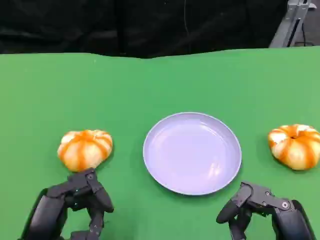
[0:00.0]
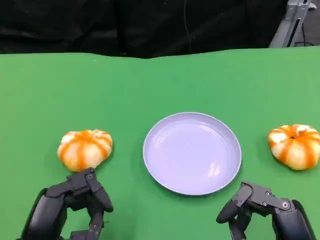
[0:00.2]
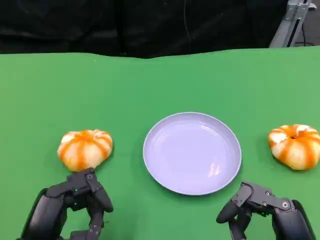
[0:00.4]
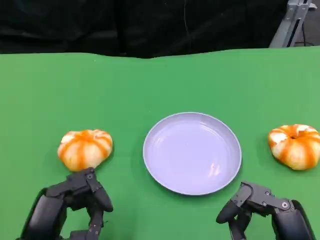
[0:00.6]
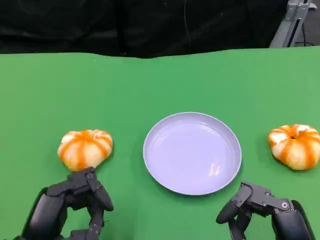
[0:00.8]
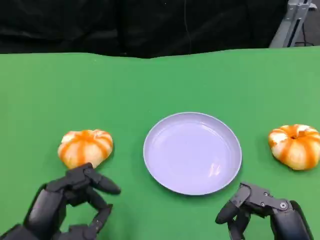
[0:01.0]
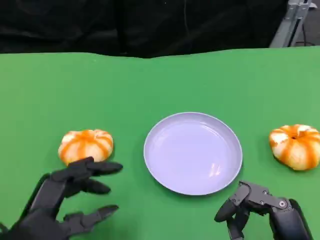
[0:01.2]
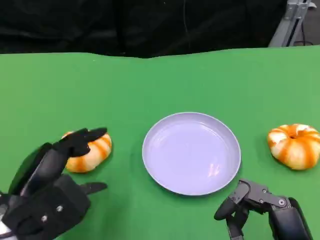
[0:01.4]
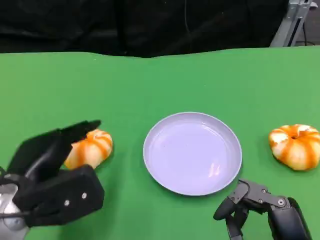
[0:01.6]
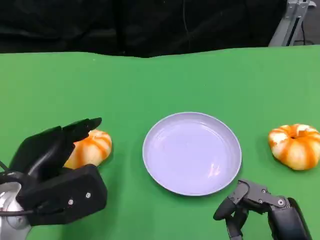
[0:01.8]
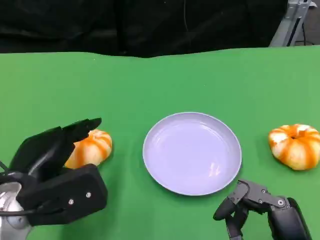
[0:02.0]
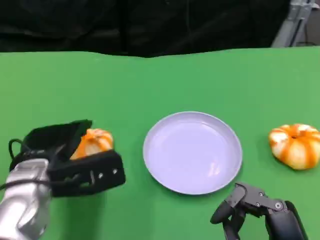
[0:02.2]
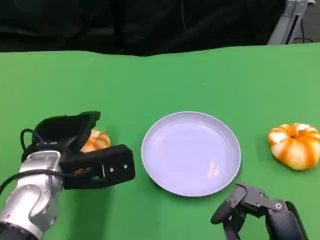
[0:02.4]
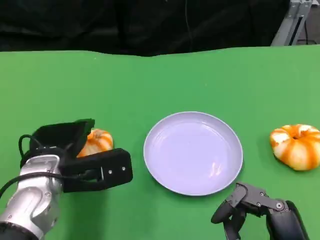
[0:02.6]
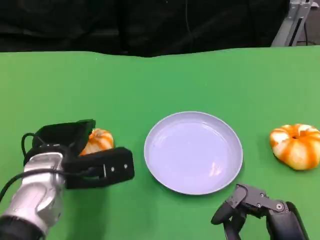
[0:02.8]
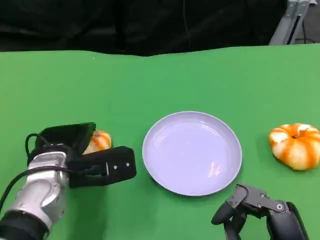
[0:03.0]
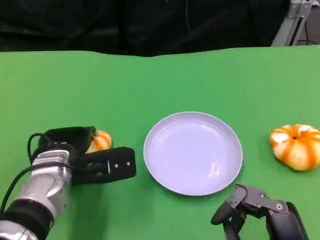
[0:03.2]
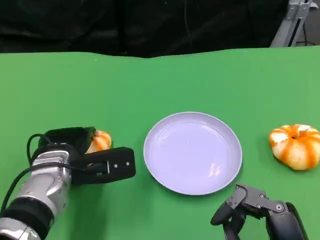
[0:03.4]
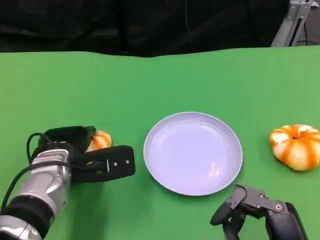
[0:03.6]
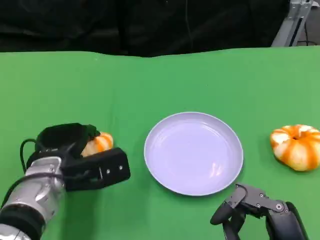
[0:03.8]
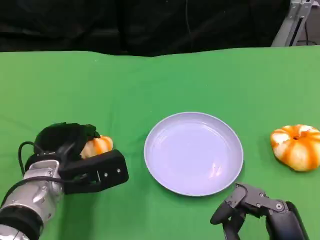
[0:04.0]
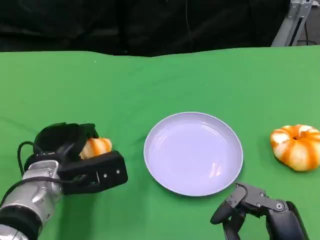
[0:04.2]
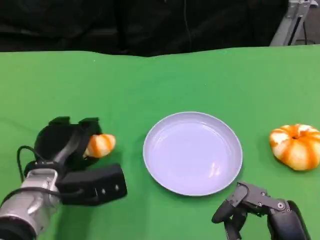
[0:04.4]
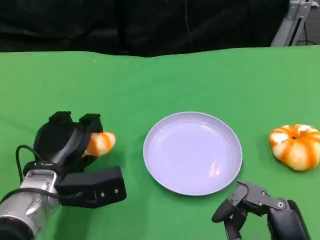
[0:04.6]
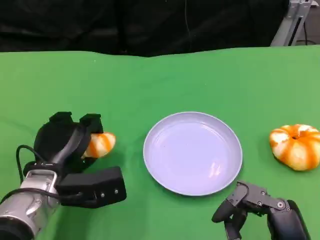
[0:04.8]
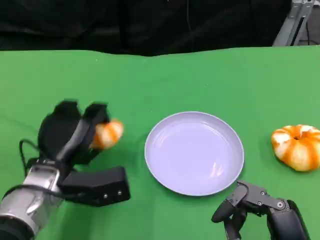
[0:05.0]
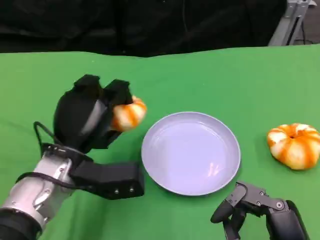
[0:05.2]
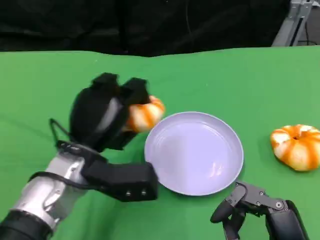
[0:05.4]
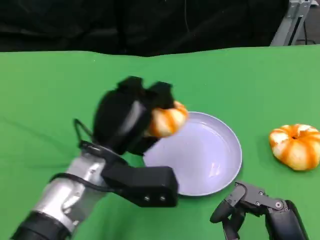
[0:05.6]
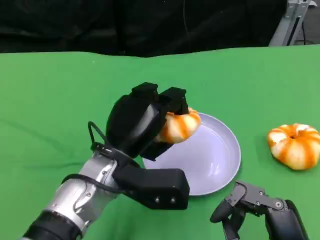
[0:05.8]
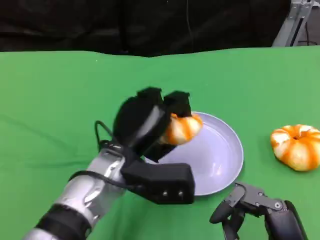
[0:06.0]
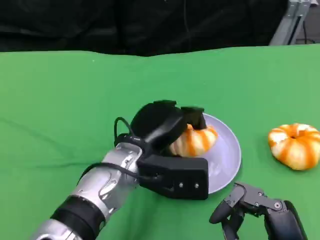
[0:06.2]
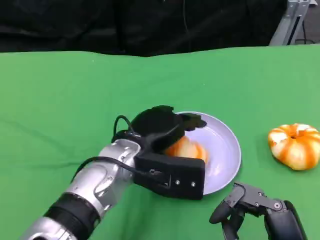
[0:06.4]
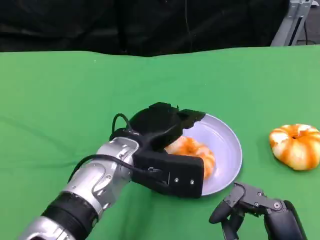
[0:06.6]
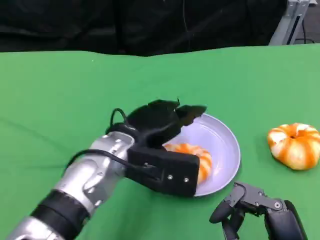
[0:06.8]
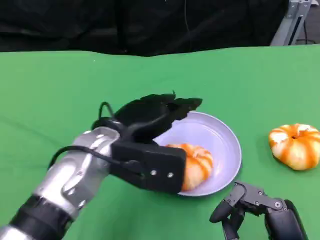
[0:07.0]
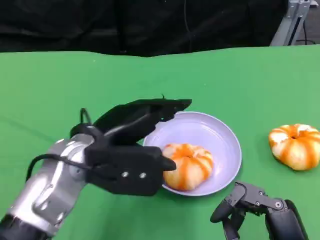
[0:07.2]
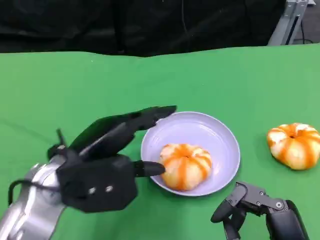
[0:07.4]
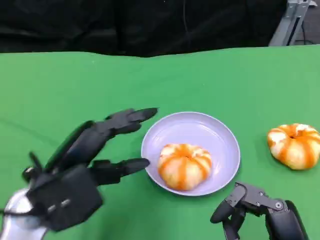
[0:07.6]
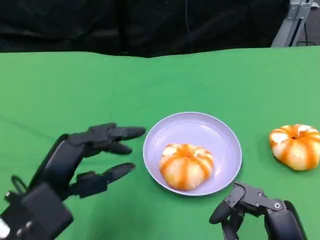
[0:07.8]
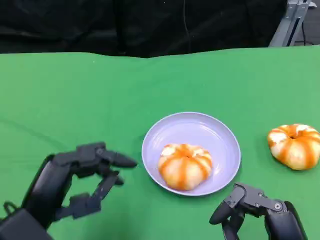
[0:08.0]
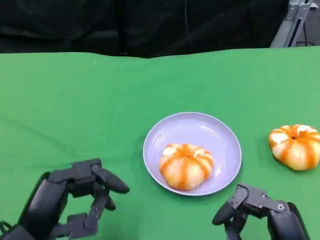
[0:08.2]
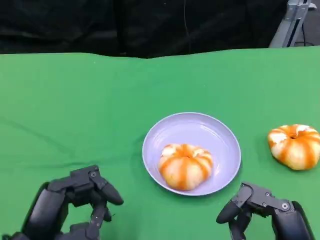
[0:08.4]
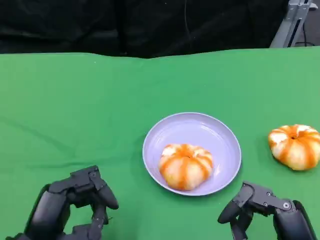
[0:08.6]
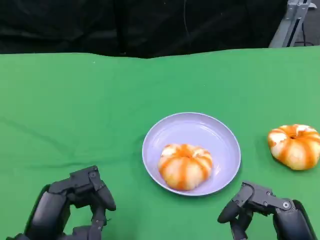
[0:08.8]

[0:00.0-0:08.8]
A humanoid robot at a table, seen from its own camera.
Task of the whole recording: Grasp the bread from the table and place it into the plate.
0.0 to 1.4 s: The left hand shifts approximately 5 cm forward.
1.4 to 3.0 s: The left hand goes roughly 10 cm forward.
4.4 to 5.8 s: The left hand moves to the right and upward, about 10 cm.
5.8 to 7.4 s: The left hand shifts approximately 10 cm to the left.
7.4 to 8.8 s: The left hand travels backward and downward by some 10 cm.

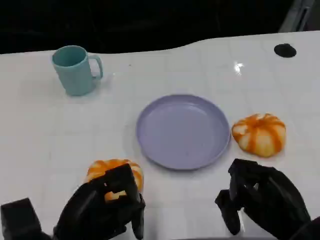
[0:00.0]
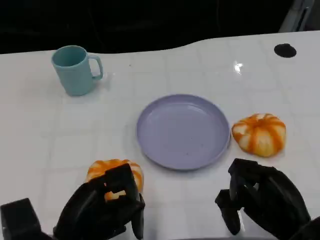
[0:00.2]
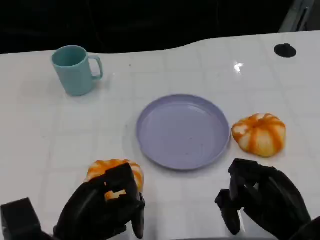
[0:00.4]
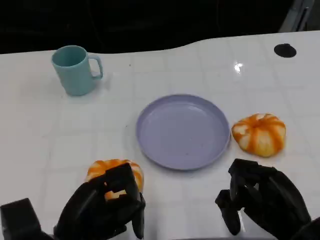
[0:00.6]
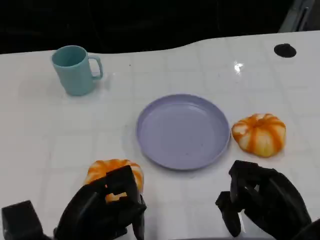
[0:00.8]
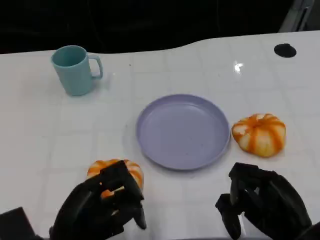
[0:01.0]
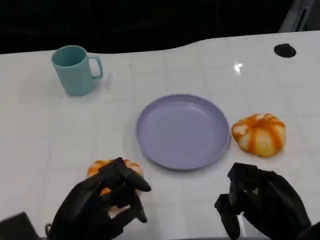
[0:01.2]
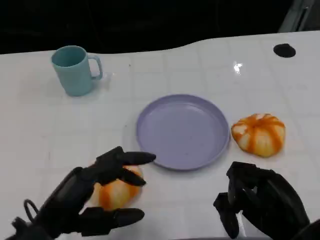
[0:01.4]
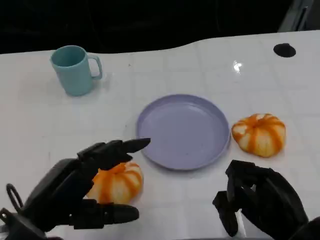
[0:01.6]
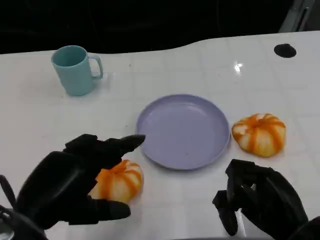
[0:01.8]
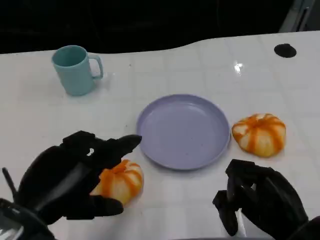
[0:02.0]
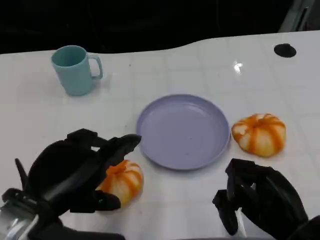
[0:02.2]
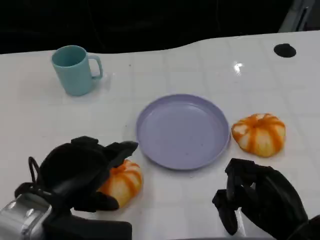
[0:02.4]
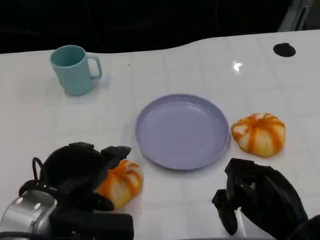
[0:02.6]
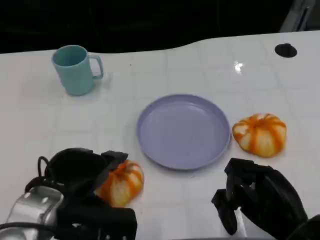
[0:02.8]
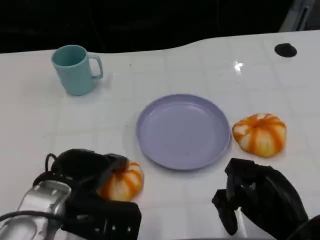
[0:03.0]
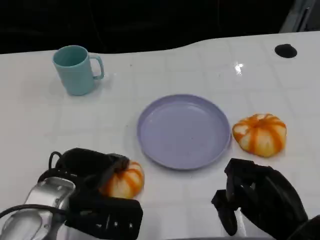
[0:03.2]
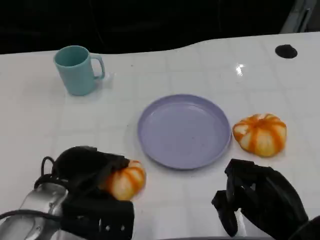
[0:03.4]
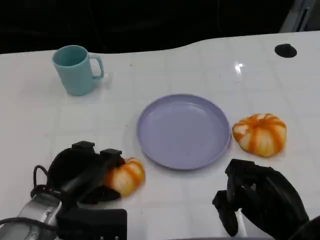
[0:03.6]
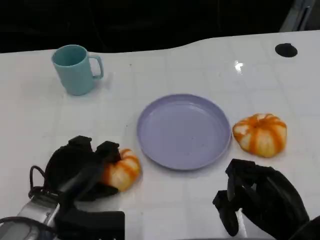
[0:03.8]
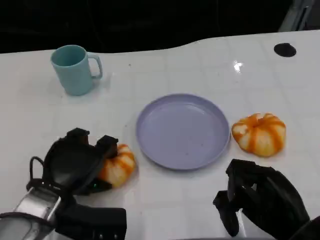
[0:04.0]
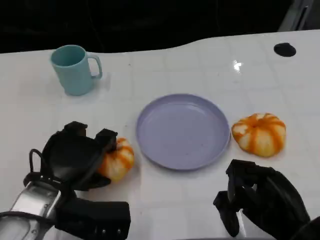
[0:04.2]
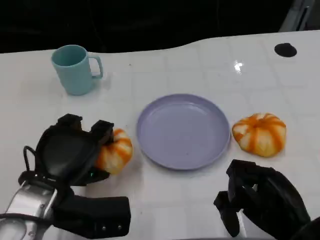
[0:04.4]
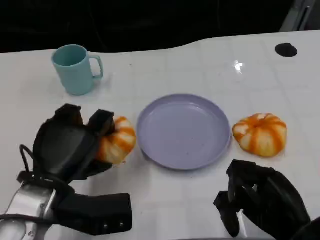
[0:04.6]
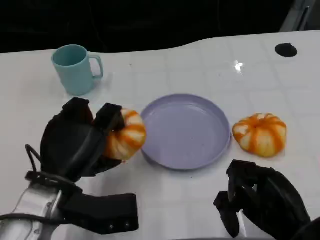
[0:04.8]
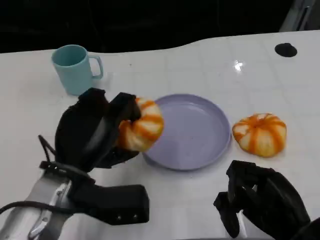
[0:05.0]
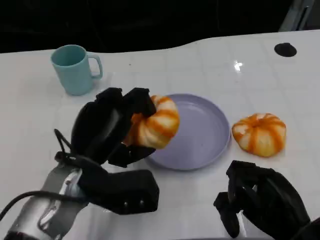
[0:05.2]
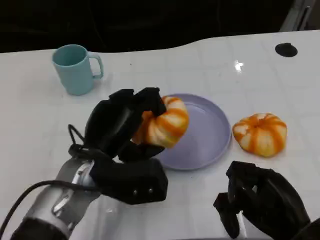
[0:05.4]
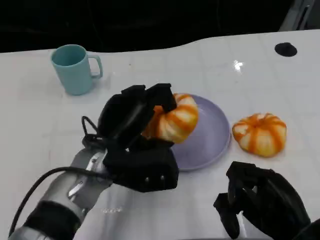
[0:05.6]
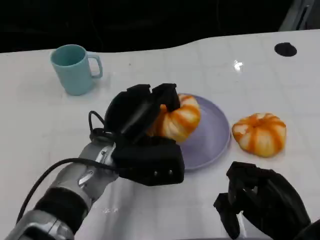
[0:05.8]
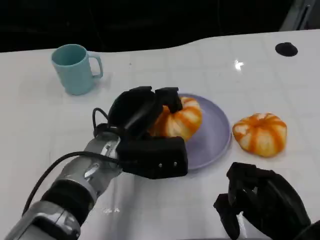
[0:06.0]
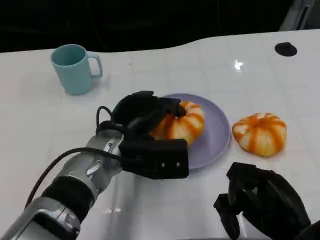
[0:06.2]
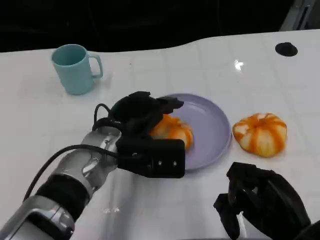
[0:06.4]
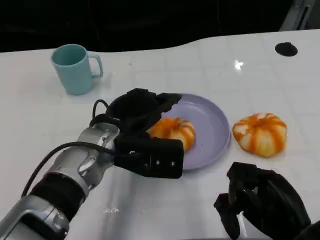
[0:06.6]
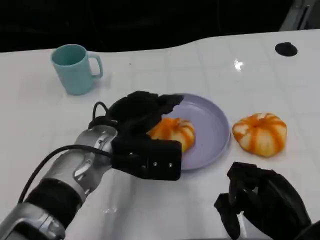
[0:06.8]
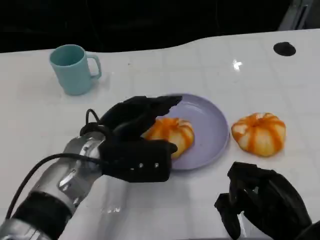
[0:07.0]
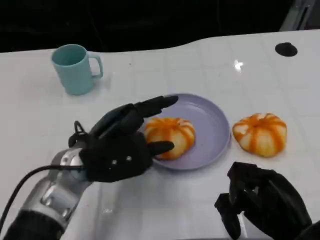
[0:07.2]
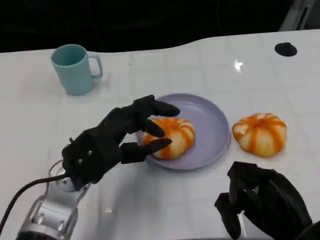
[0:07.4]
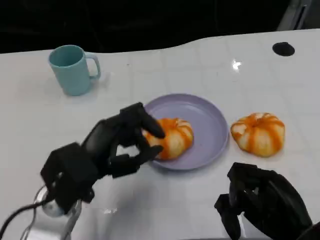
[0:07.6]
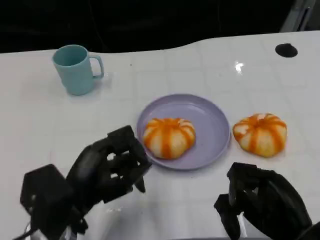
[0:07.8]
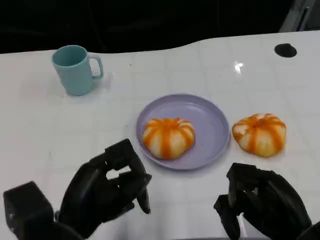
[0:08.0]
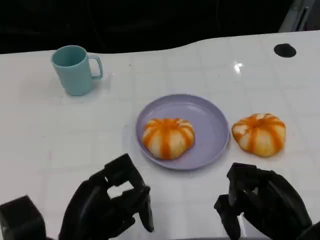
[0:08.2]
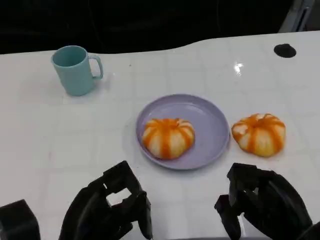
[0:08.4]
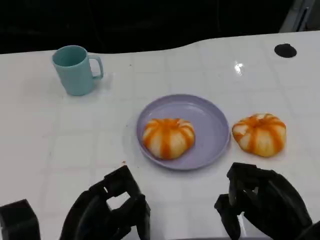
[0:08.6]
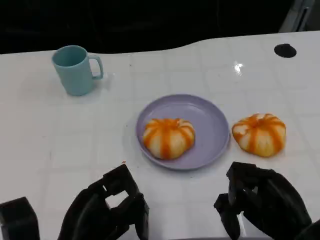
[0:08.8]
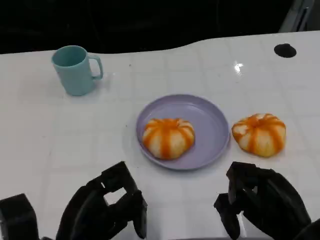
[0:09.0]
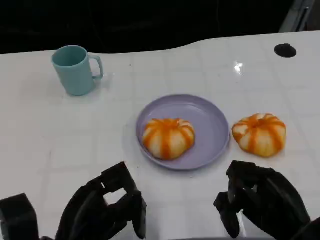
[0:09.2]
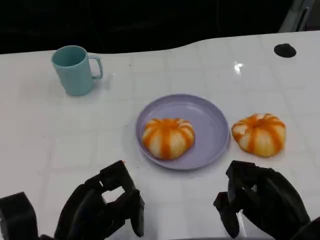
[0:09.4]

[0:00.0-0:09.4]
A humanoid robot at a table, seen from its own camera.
Task of the whole recording: Grasp the bread from the table and place it into the plate.
0.0 to 1.6 s: The left hand is displaced upward by about 5 cm.
1.6 to 3.2 s: The left hand goes about 10 cm forward.
4.8 to 6.2 s: The left hand shifts roughly 10 cm to the right and forward.
6.2 to 7.8 s: The left hand travels backward and to the left by some 15 cm.

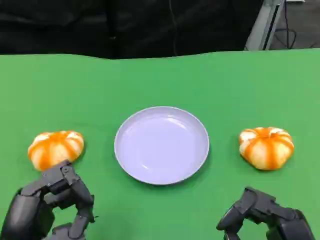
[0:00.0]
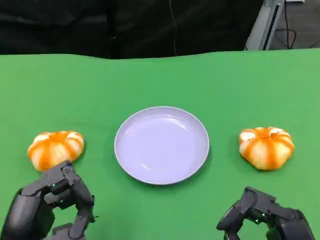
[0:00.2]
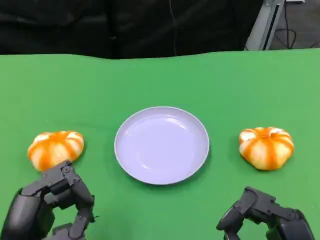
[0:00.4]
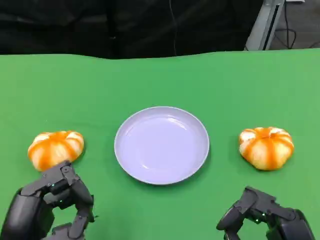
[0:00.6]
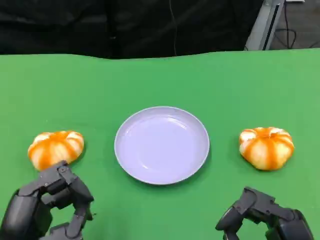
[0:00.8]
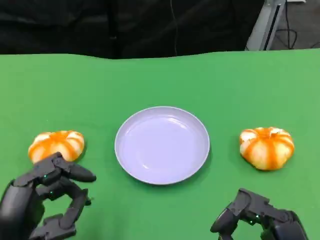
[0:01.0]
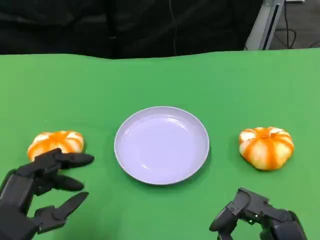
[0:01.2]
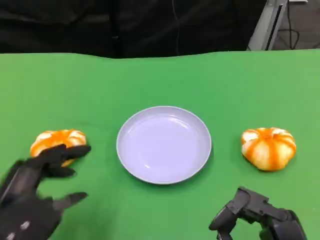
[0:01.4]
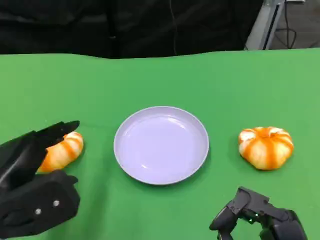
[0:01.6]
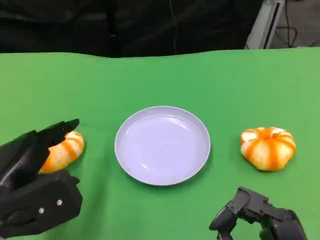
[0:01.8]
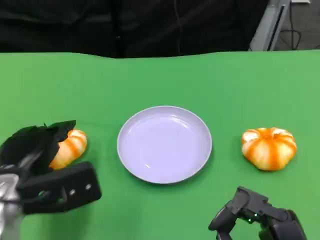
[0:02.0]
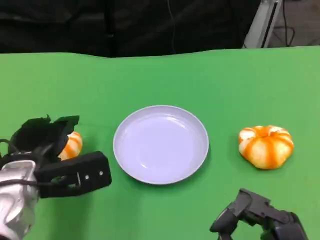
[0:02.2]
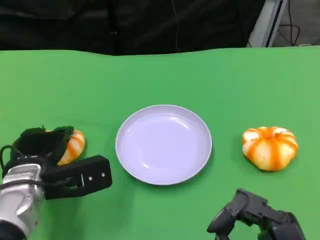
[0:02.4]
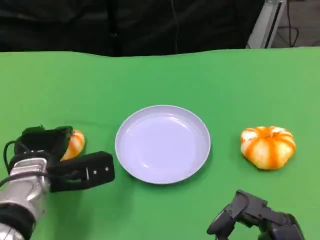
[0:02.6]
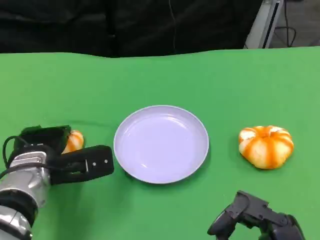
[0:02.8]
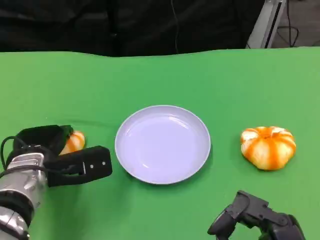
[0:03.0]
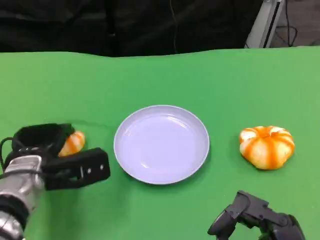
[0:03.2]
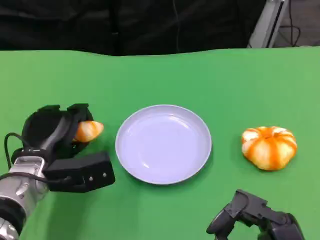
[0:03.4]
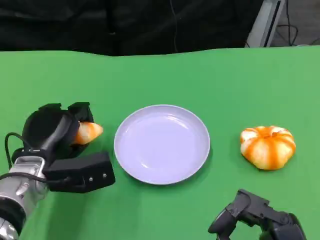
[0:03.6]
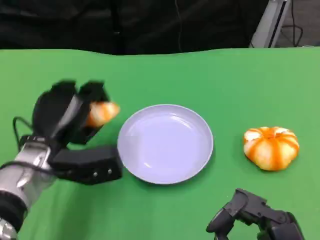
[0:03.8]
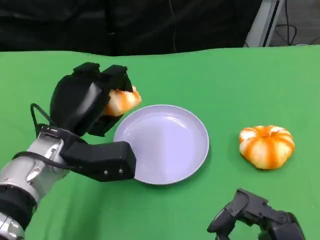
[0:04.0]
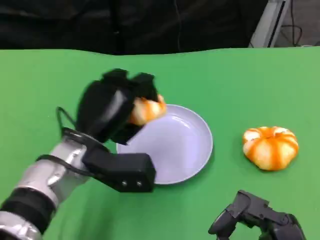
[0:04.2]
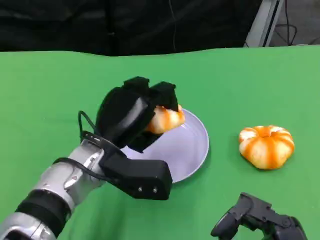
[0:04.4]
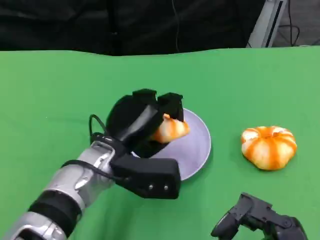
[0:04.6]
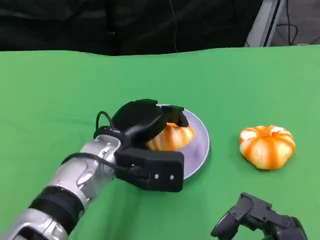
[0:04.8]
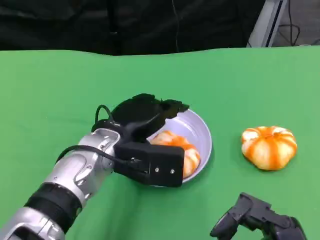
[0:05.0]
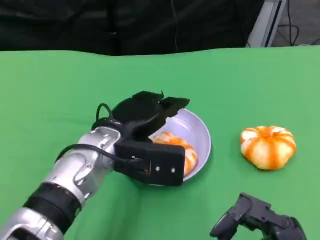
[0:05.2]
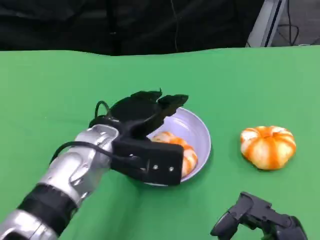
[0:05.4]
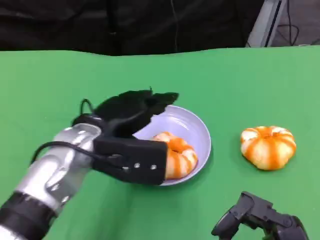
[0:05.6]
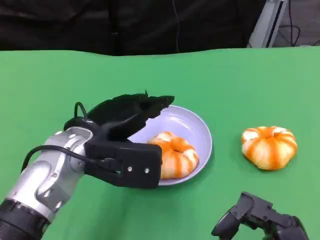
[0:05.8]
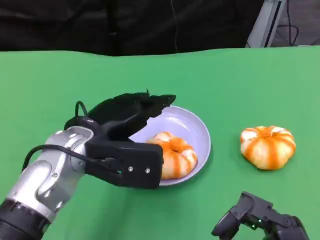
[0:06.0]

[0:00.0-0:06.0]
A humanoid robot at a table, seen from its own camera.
Task of the whole recording: Grasp the bread from the table and place it into the plate.
0.0 to 1.6 s: The left hand shifts some 5 cm forward.
1.6 to 3.0 s: The left hand heads forward and downward, covering approximately 10 cm.
3.0 to 4.4 s: The left hand goes roughly 10 cm to the right.
4.4 to 6.0 s: The left hand ends up approximately 5 cm from where it was.
